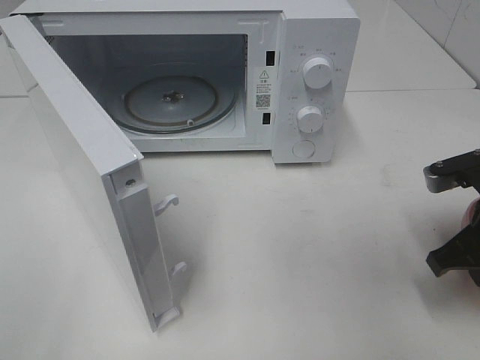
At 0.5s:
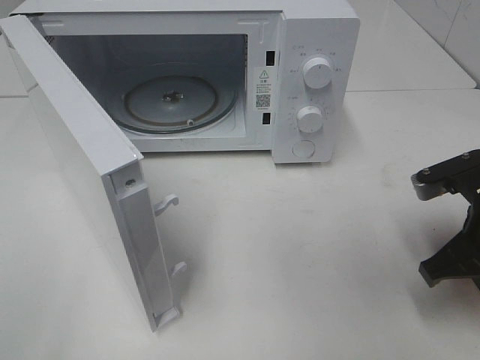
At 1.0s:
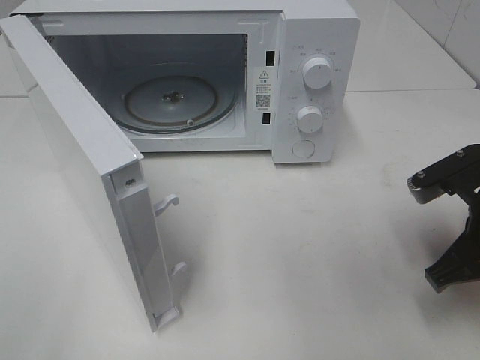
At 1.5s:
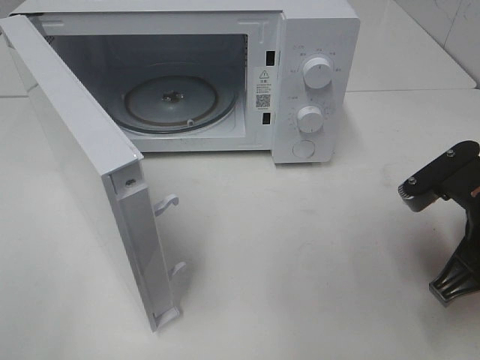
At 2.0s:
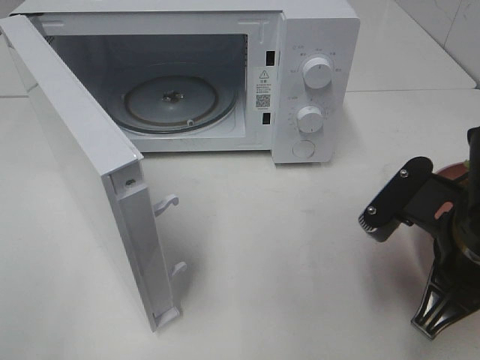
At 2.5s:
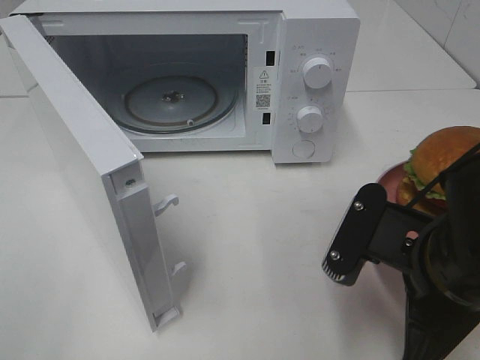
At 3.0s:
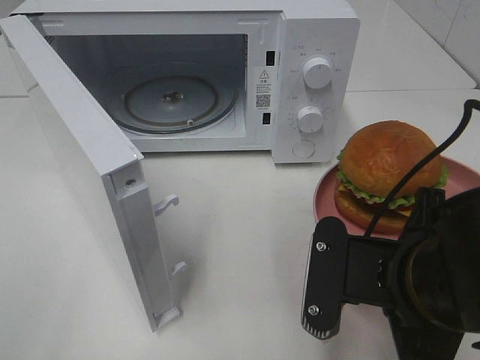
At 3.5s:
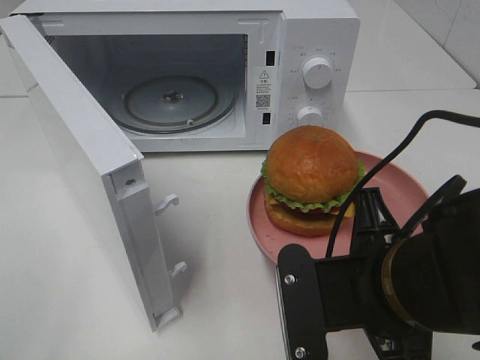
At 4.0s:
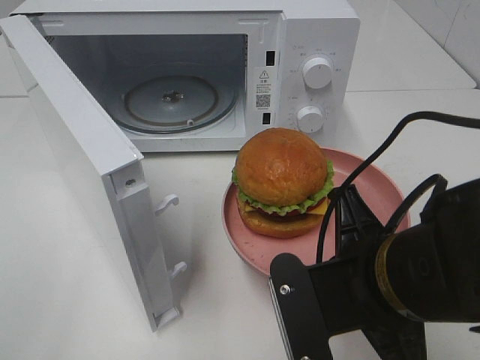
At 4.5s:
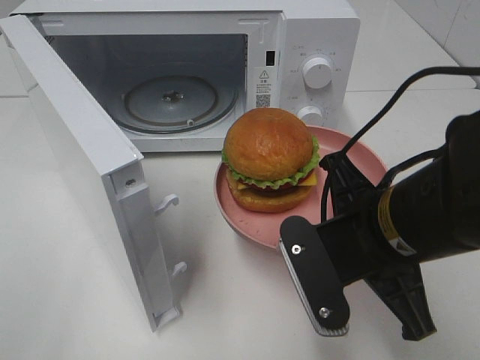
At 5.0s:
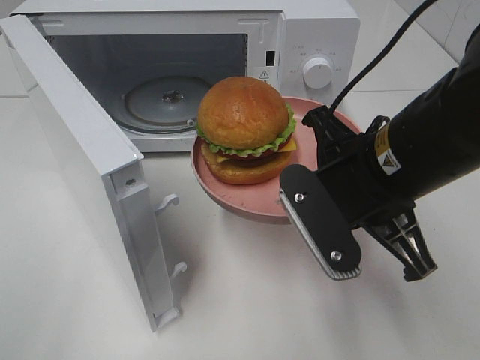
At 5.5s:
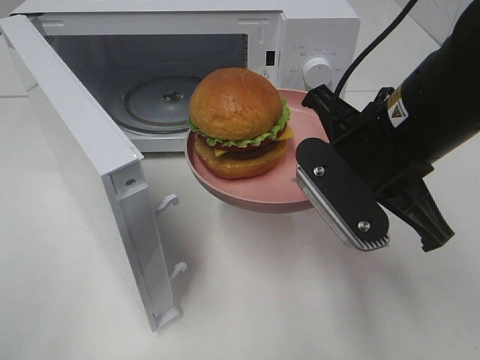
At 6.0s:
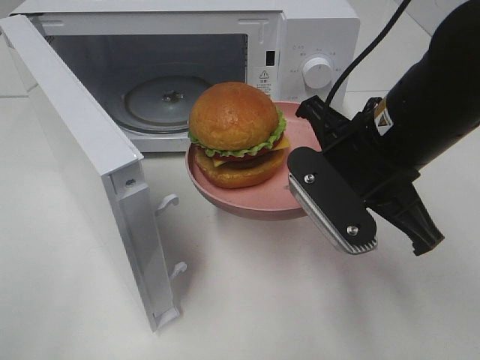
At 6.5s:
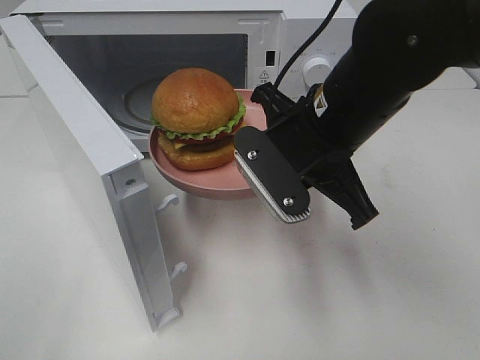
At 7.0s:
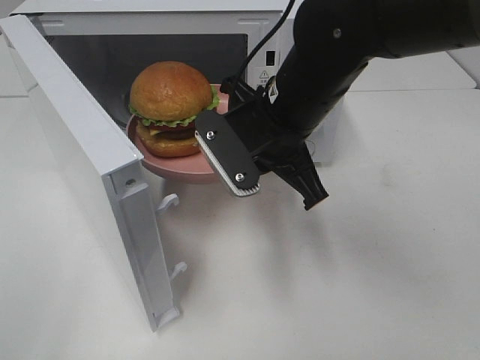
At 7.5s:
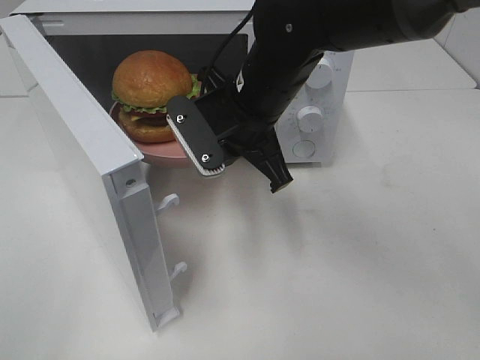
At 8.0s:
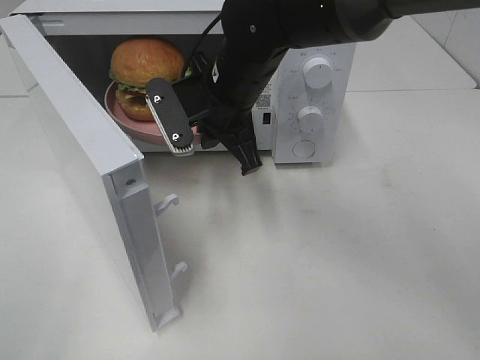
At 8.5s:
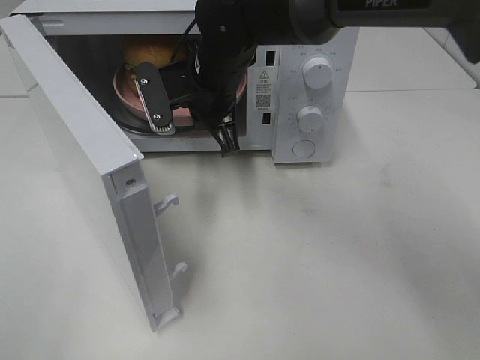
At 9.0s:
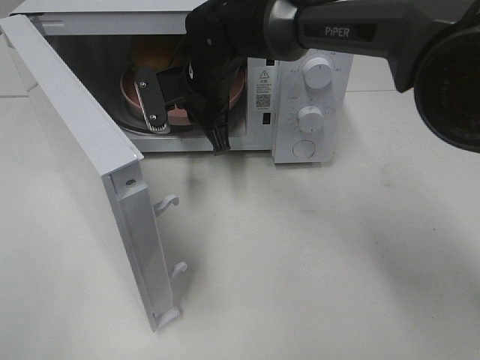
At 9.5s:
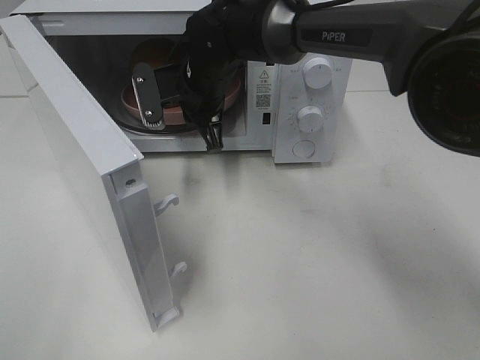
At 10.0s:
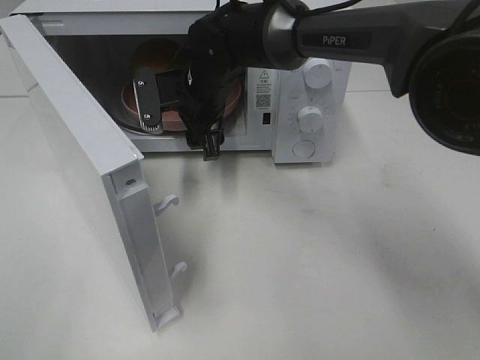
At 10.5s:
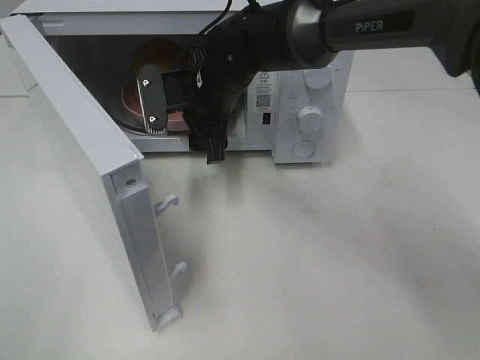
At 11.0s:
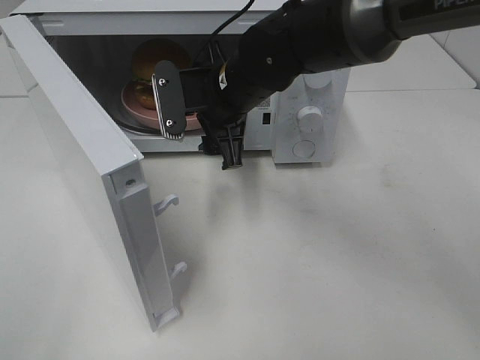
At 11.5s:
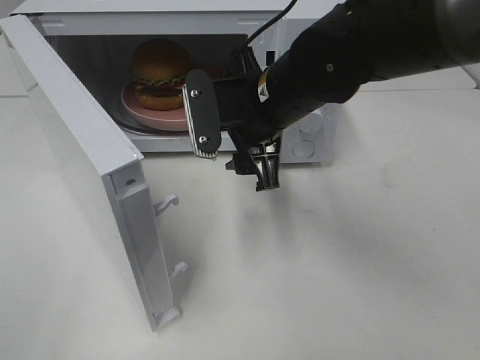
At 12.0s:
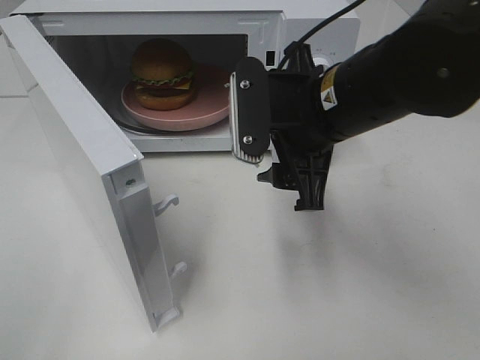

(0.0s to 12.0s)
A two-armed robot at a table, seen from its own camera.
Task of the whole recording: Heat the burger.
Step, 0.5s - 9.5s: Right hand: place the plate in the microwave.
0.0s - 2.0s: The right gripper goes about 10 cm to the left and backward.
2.0s - 4.0s: The right gripper shifts some 10 cm to the left.
4.0s - 6.0s: The right gripper moves forward and upward, about 10 cm.
6.0s - 8.0s: The right gripper travels forward and to the left by about 20 cm.
8.0s - 10.0s: The right gripper is displaced forward by approximately 5 cm, and opens its fingers.
10.0s - 12.0s: The right gripper shifts approximately 20 cm backward, to the right and upward.

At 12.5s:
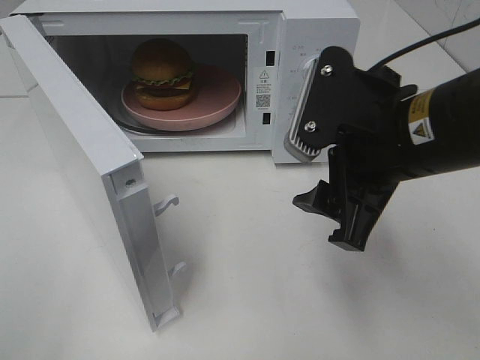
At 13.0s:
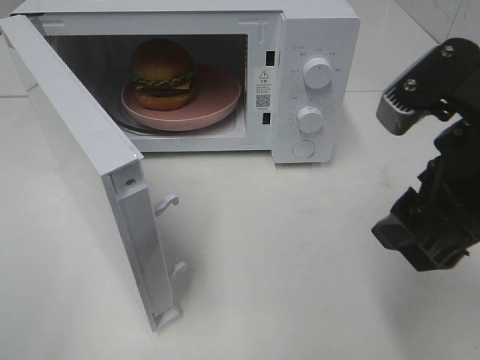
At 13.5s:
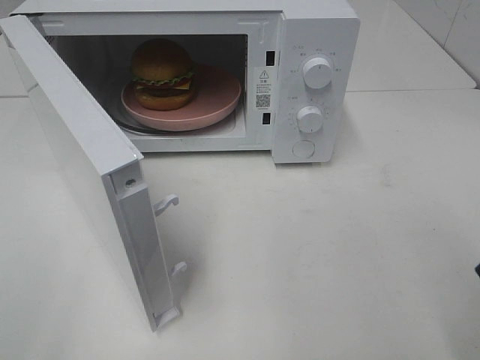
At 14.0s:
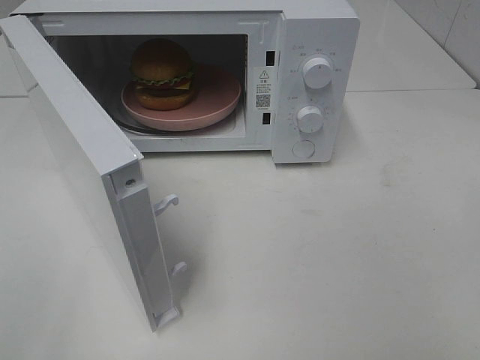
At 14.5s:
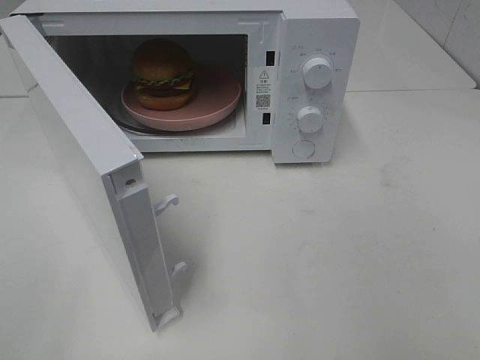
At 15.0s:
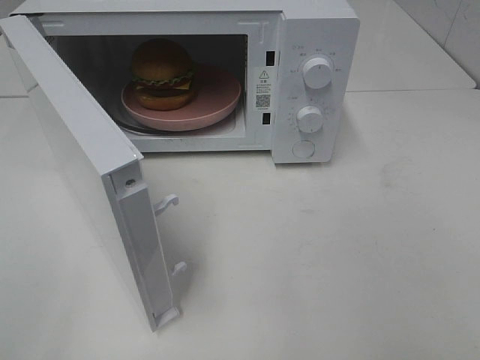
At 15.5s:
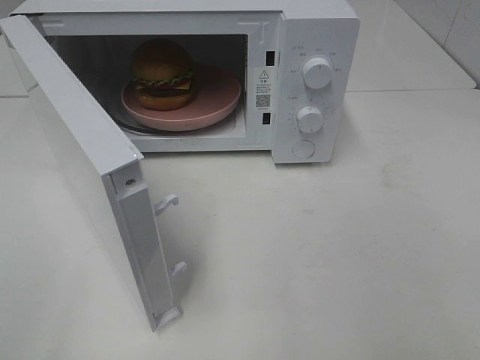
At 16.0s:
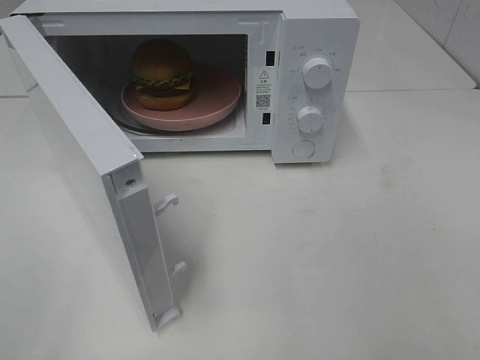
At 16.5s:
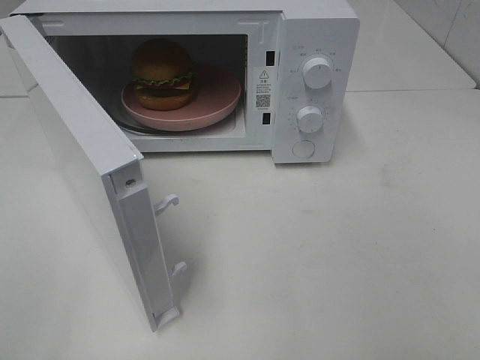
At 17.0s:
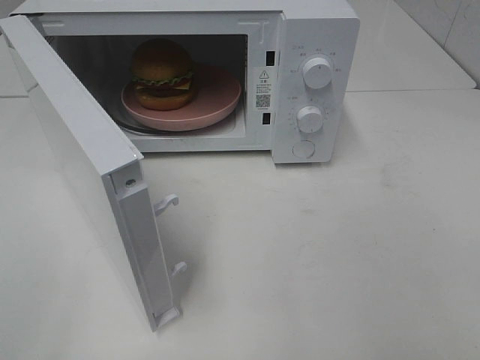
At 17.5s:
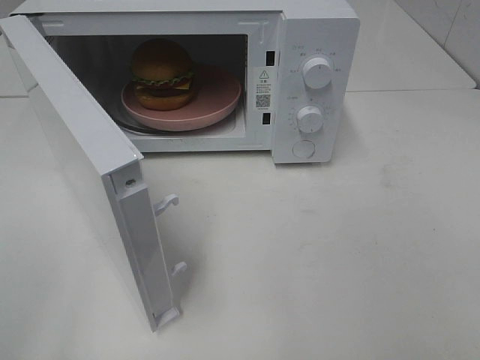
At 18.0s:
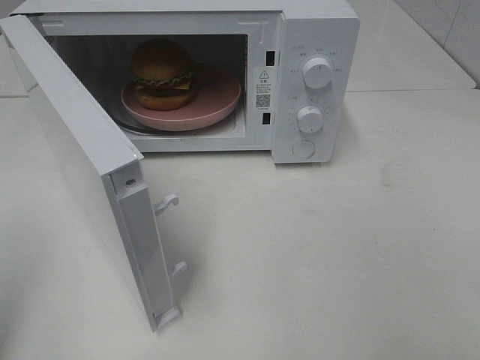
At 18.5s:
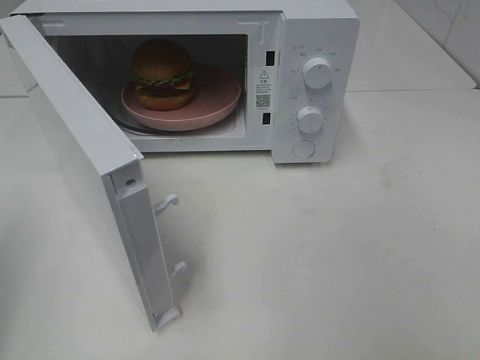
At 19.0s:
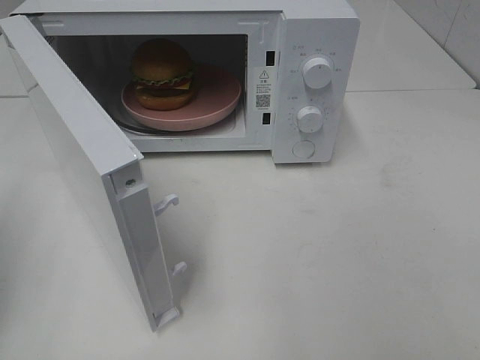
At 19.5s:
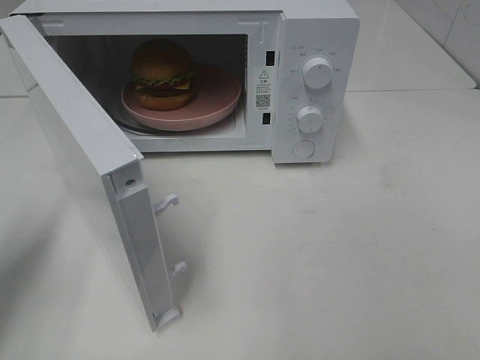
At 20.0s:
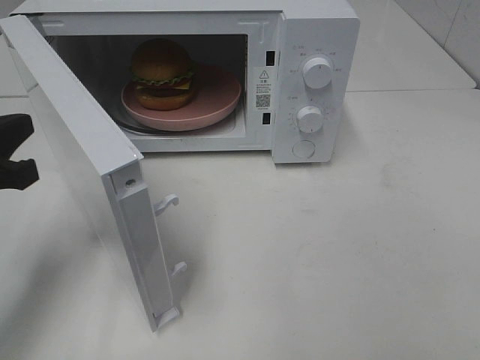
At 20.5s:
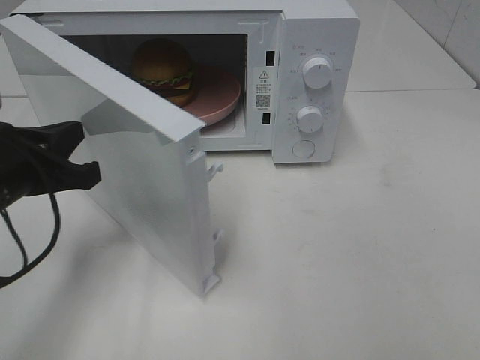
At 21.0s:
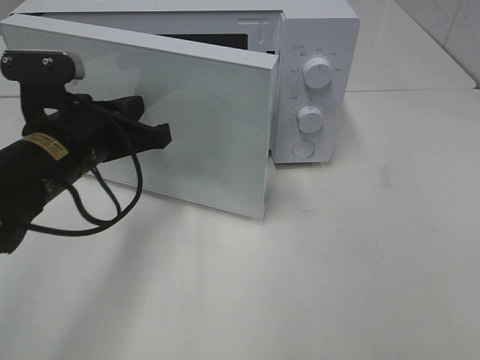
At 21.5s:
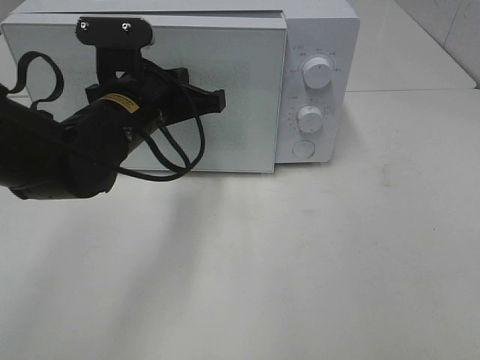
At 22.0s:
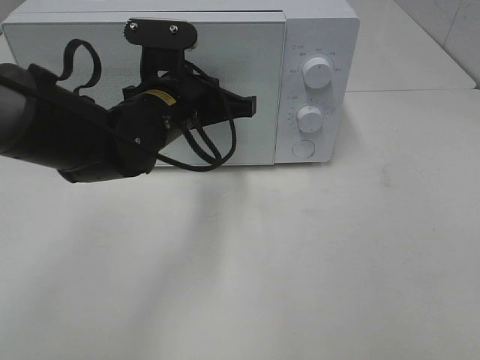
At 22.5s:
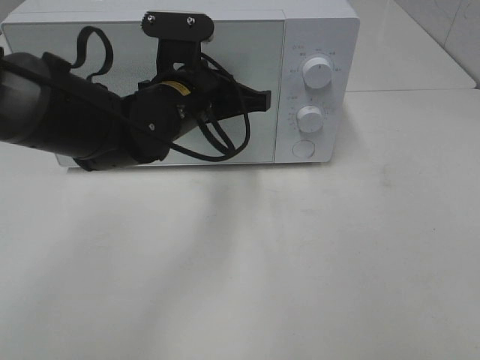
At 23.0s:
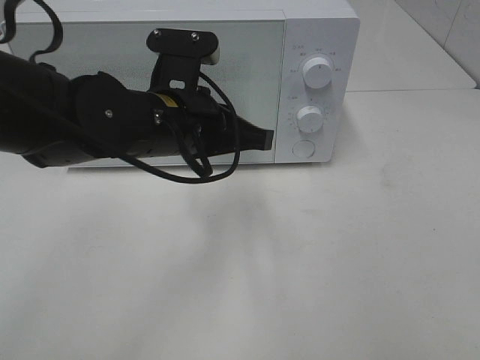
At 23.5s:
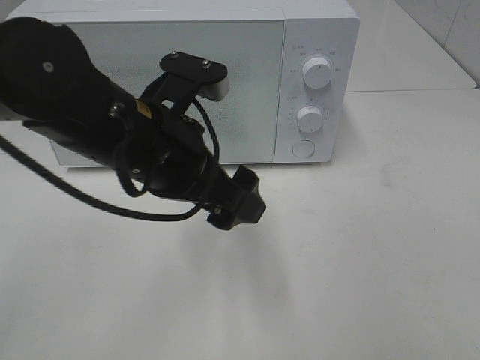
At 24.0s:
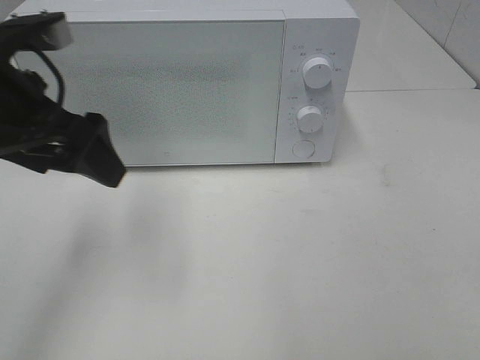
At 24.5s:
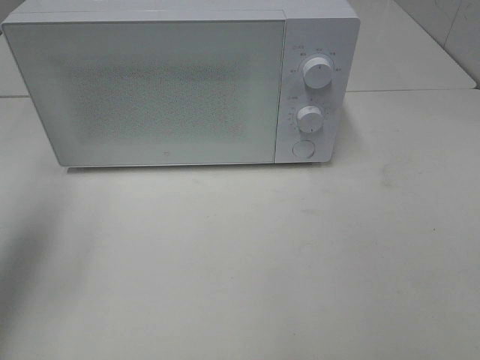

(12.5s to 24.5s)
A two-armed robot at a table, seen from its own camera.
Task of the whole recording: Heat the burger.
Step, 12.5s - 23.0s: Left hand: close the microwave door.
12.5s - 14.5s: The right gripper shifts roughly 25 cm backward and to the right.
18.5s - 20.5s: The left gripper moves to the right, forward and downward, roughly 20 cm.
20.5s - 22.5s: The left gripper shifts approximately 20 cm to the right and forward.
22.5s - 24.5s: The left gripper shifts approximately 30 cm to the left and upward, and opens.

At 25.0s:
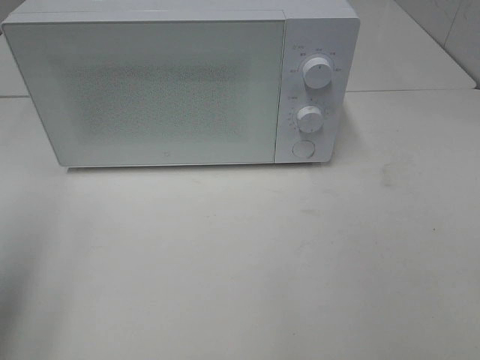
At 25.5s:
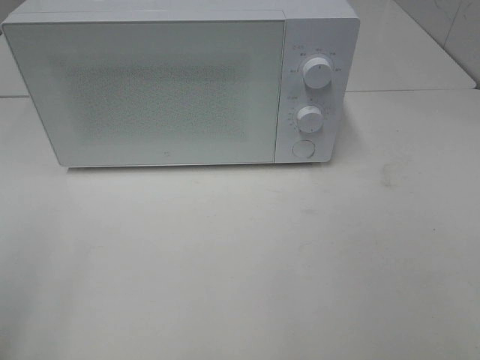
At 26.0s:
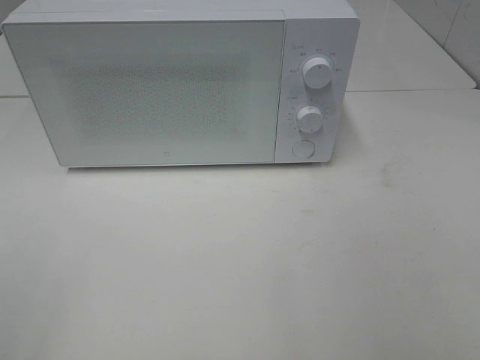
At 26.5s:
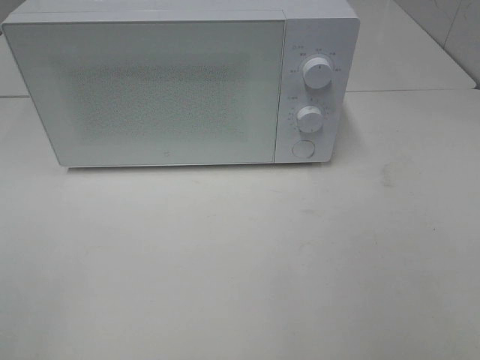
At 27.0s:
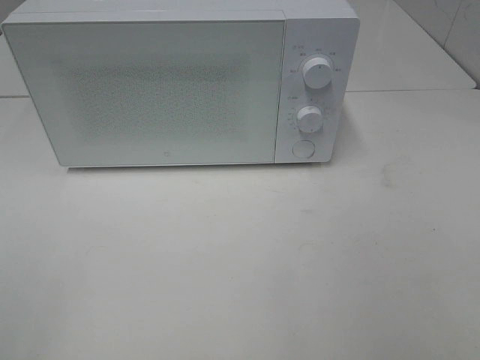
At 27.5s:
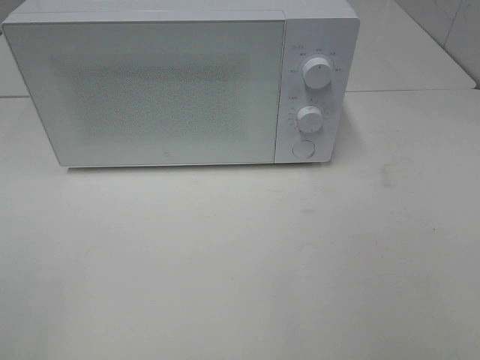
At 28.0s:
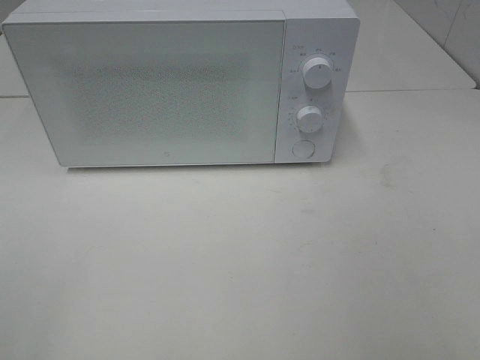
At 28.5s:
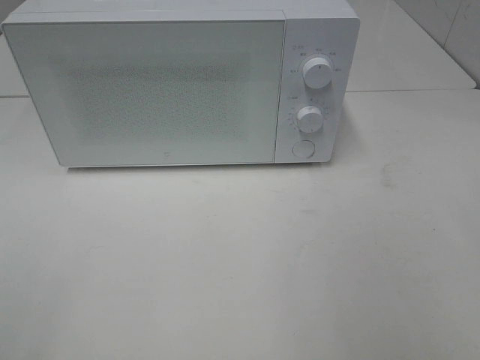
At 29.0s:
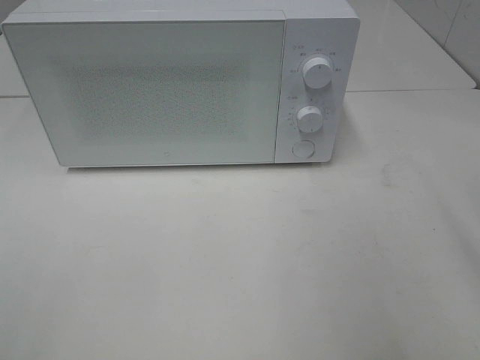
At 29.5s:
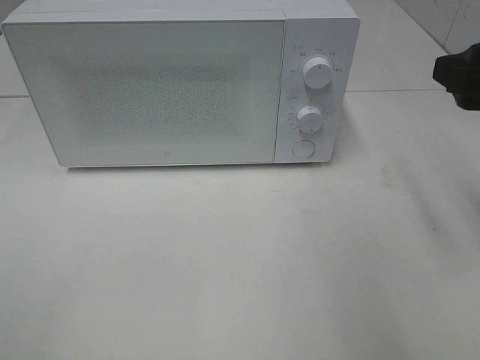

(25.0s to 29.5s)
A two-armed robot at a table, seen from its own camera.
Task of the whole recording: Heat the burger.
25.0s - 27.0s: The left gripper goes some 15 cm backward.
27.0s - 29.5s: The right gripper shifts about 20 cm forward.
